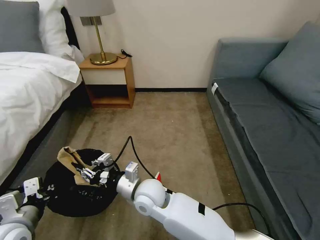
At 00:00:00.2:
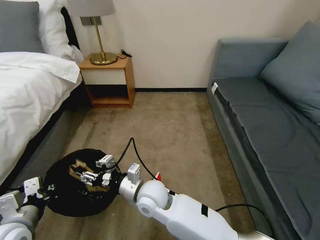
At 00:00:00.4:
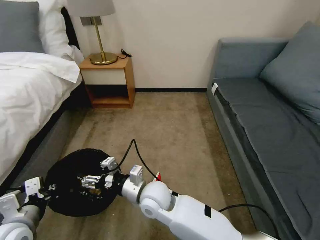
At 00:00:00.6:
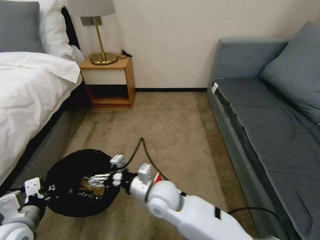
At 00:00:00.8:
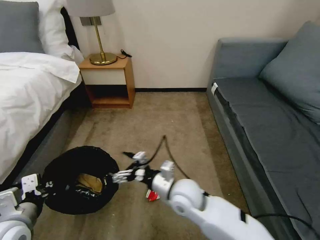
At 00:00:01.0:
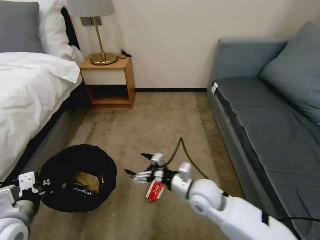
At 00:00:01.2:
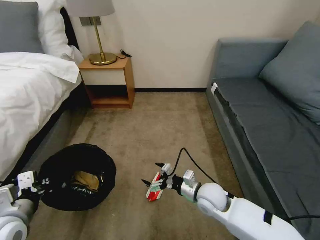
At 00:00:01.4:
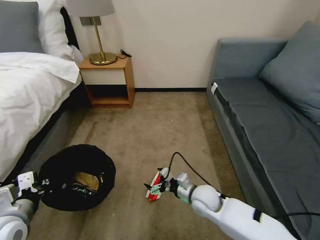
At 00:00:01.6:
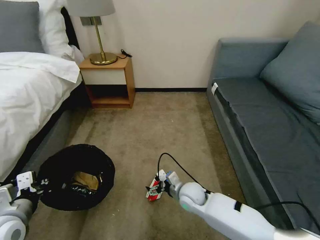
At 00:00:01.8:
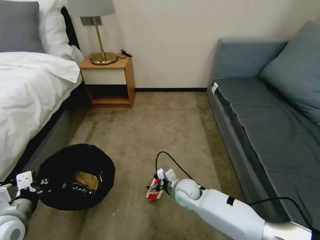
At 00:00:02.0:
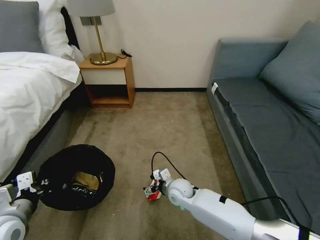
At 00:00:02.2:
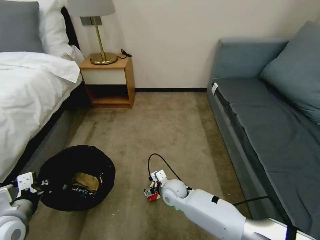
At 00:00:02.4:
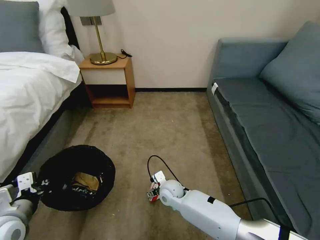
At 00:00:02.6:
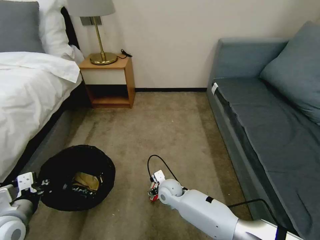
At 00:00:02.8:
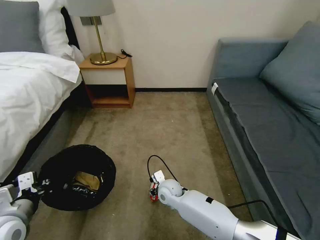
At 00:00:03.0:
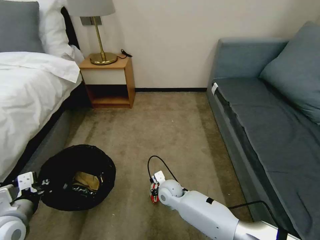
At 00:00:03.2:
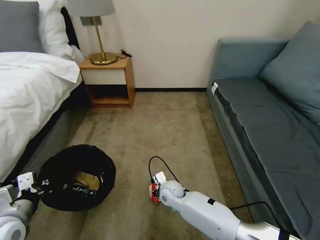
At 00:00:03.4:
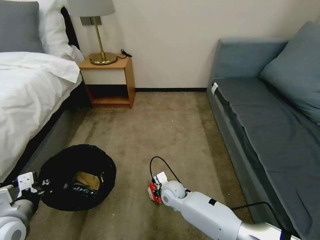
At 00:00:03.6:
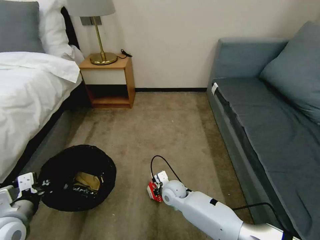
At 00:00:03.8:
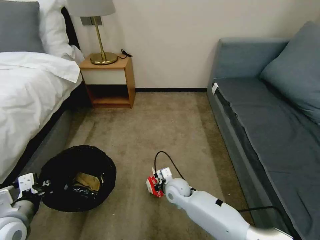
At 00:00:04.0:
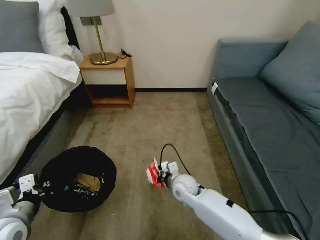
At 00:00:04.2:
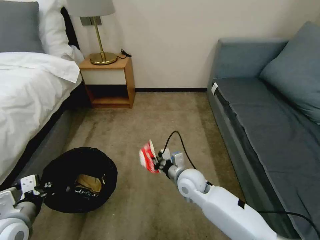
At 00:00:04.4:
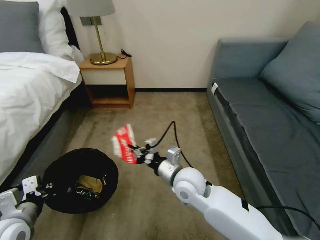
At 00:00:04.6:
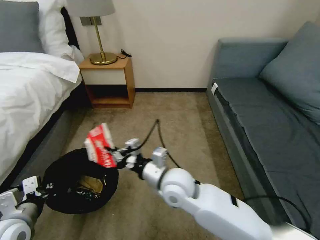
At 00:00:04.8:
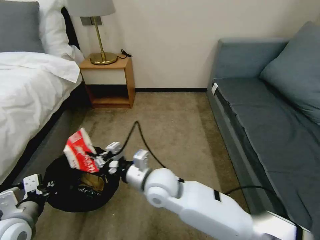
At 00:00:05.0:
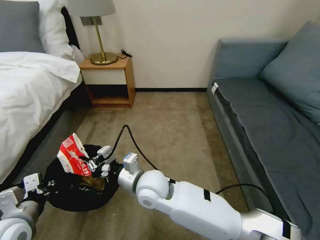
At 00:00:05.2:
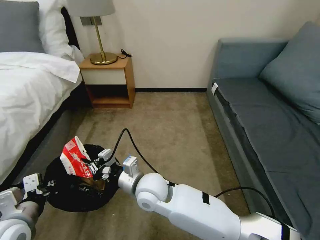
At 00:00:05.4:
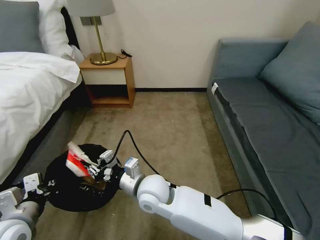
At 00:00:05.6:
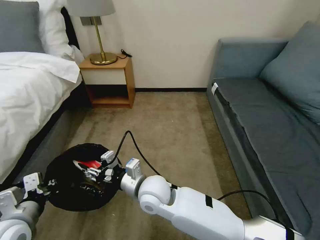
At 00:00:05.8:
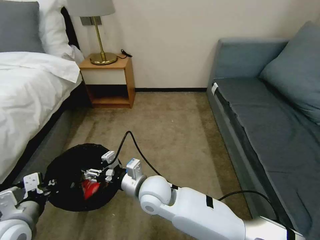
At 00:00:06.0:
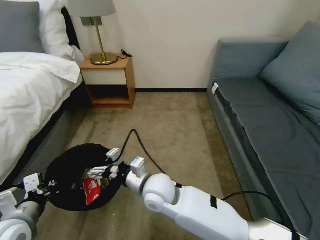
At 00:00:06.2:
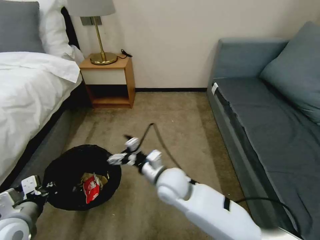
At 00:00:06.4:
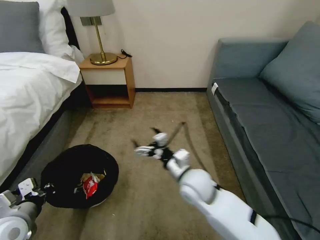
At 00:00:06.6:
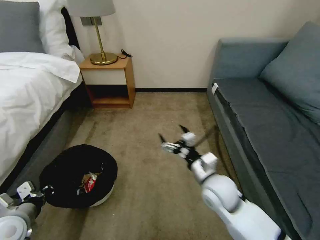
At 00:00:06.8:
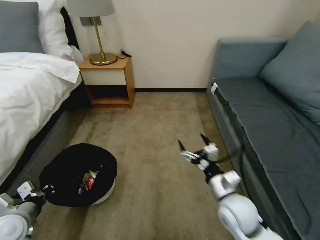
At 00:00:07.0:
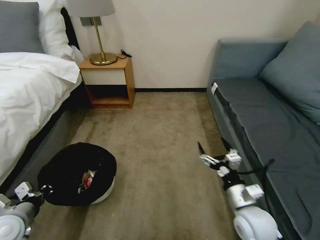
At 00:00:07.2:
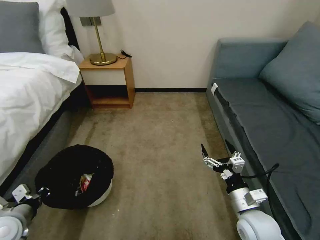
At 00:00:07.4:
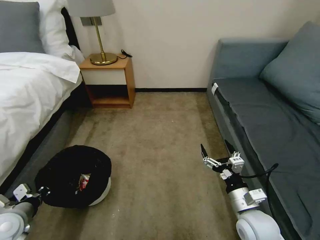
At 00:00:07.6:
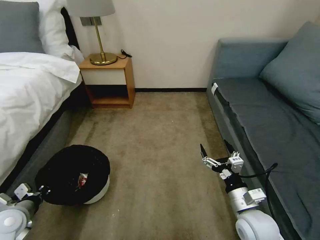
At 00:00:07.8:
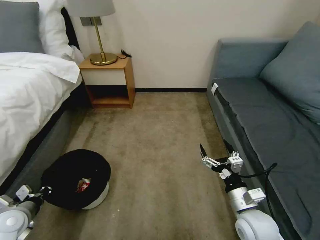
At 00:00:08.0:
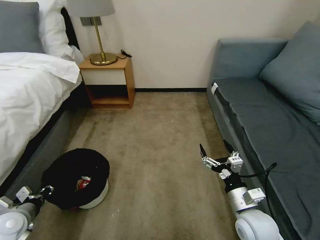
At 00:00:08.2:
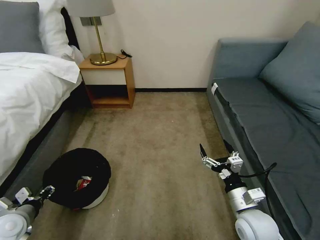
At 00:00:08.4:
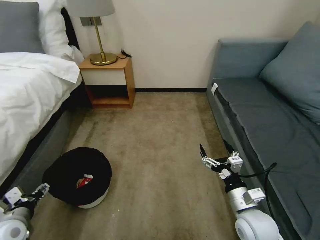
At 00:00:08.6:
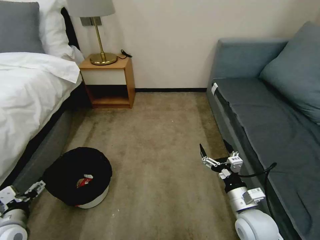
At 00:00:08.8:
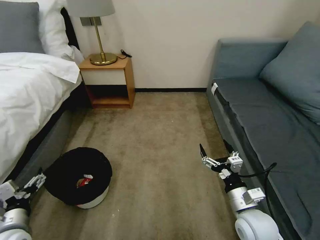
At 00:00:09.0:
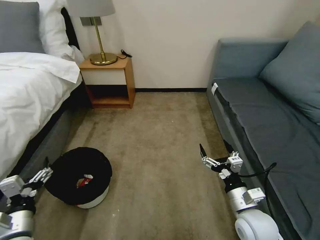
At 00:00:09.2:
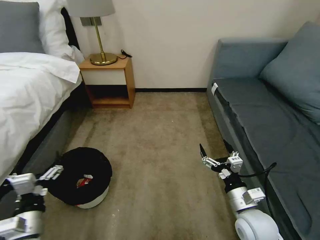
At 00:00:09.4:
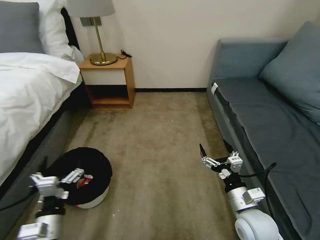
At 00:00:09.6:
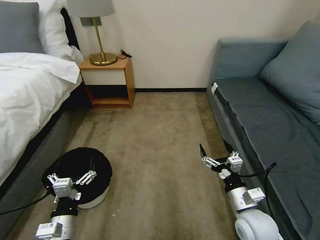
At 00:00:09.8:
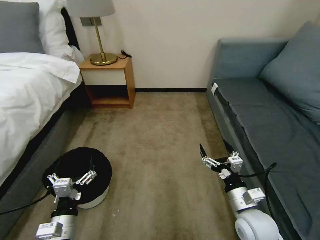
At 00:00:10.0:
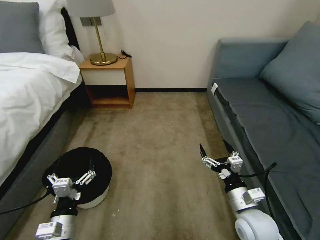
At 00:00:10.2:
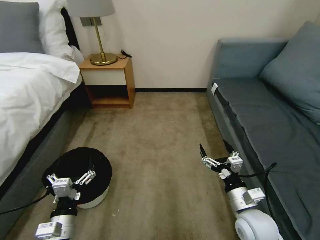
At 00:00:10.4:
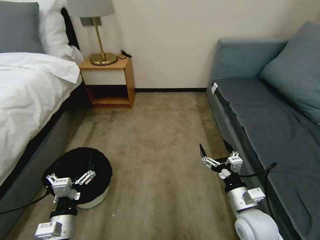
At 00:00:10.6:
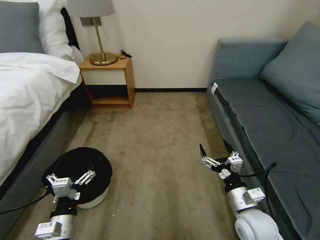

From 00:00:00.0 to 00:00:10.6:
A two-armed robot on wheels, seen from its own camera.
Task of the whole recording: Pick up the trash bin, then pick up the garbage on the floor and place it into the trash bin.
From 00:00:00.0 to 00:00:01.6: The right gripper travels to the right and downward by roughly 20 cm, and opens up.
From 00:00:01.6 to 00:00:03.0: The right gripper moves to the left, approximately 10 cm, and closes up.
From 00:00:03.0 to 00:00:04.6: The right gripper is displaced upward by about 20 cm, and closes its fingers.
From 00:00:04.6 to 00:00:06.0: The right gripper shifts roughly 5 cm to the left, and opens.
From 00:00:06.0 to 00:00:07.6: The right gripper shifts about 30 cm to the right; the left gripper goes about 10 cm to the left and downward.
From 00:00:07.6 to 00:00:09.0: The left gripper travels to the right and backward by roughly 10 cm, and opens its fingers.
From 00:00:09.0 to 00:00:10.6: The left gripper is displaced to the right by approximately 10 cm.

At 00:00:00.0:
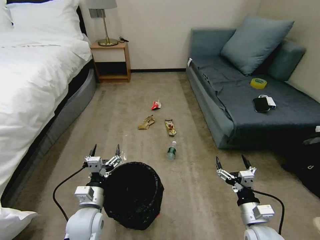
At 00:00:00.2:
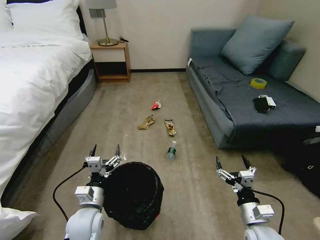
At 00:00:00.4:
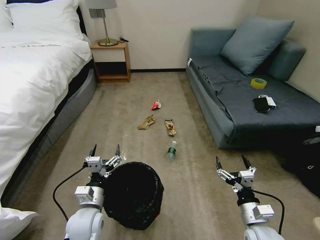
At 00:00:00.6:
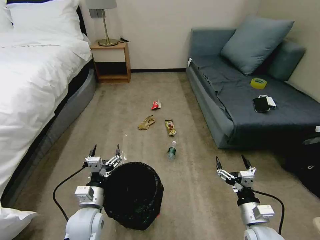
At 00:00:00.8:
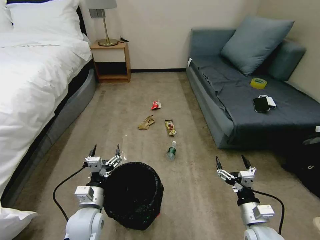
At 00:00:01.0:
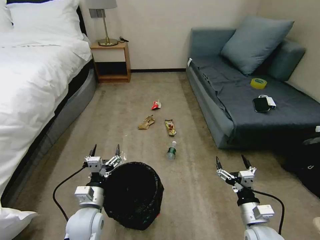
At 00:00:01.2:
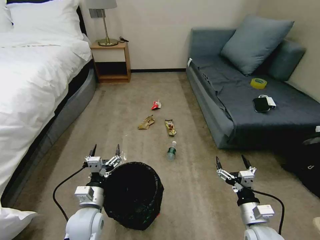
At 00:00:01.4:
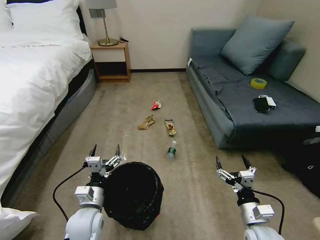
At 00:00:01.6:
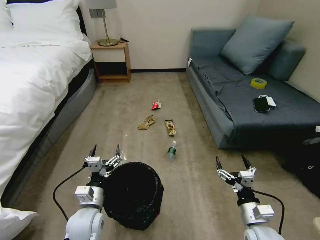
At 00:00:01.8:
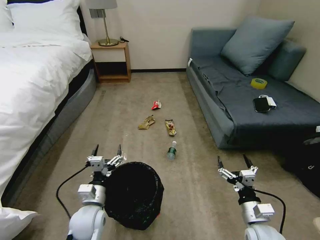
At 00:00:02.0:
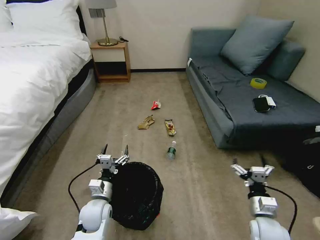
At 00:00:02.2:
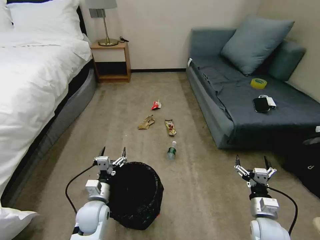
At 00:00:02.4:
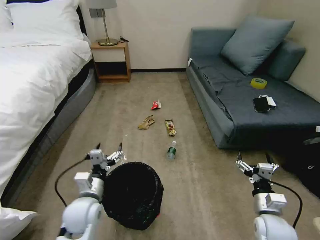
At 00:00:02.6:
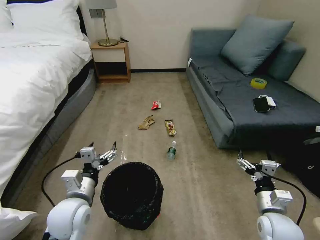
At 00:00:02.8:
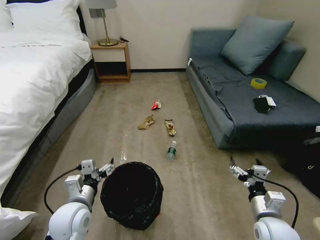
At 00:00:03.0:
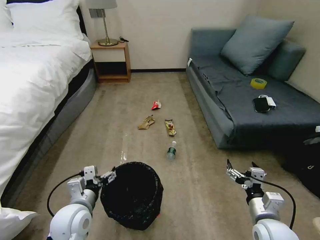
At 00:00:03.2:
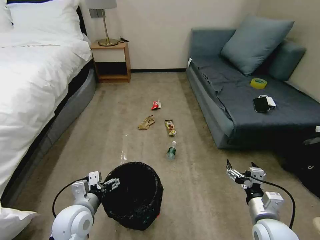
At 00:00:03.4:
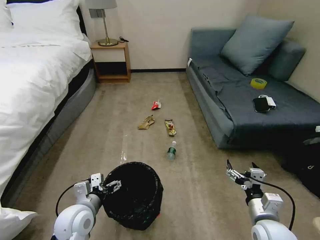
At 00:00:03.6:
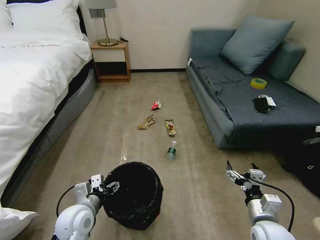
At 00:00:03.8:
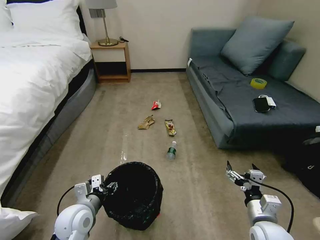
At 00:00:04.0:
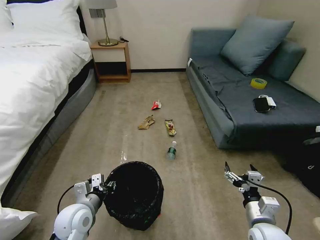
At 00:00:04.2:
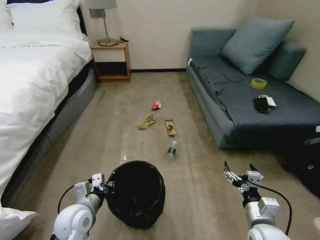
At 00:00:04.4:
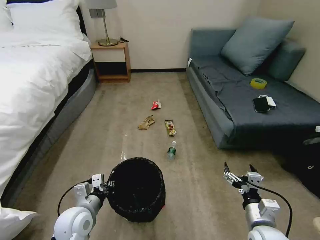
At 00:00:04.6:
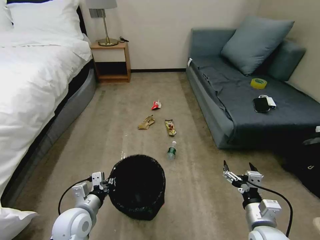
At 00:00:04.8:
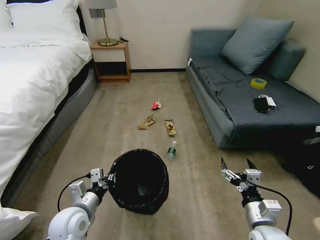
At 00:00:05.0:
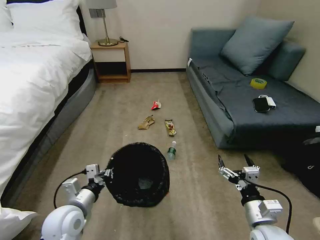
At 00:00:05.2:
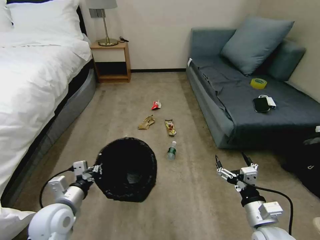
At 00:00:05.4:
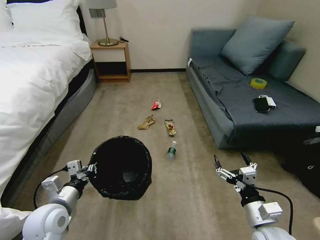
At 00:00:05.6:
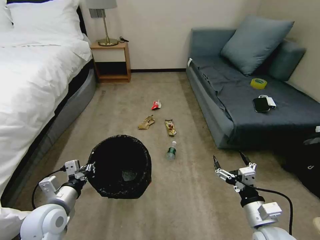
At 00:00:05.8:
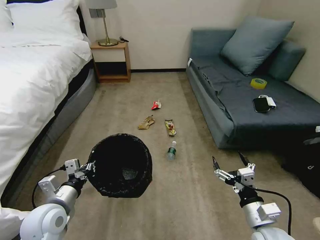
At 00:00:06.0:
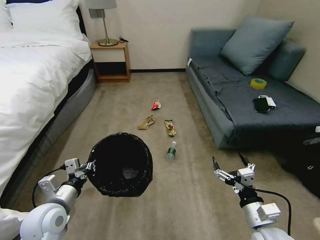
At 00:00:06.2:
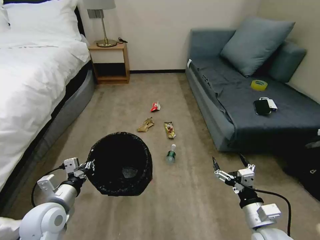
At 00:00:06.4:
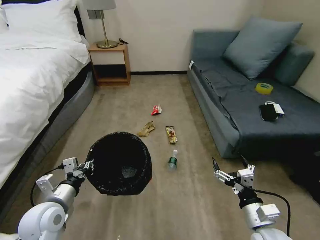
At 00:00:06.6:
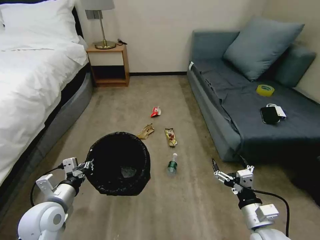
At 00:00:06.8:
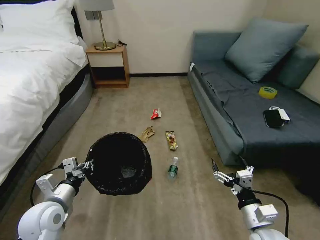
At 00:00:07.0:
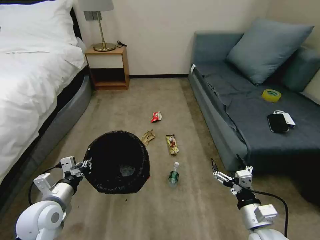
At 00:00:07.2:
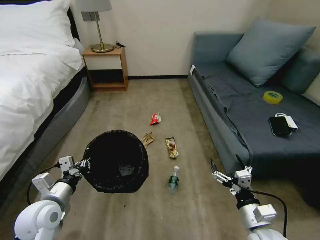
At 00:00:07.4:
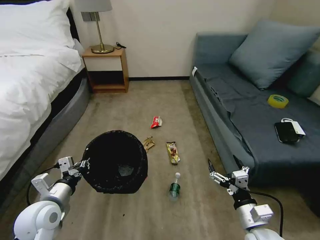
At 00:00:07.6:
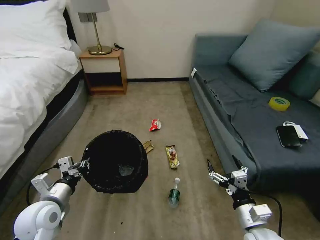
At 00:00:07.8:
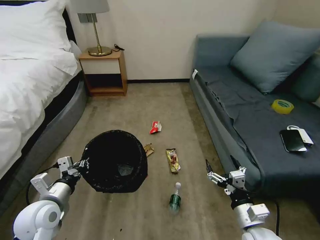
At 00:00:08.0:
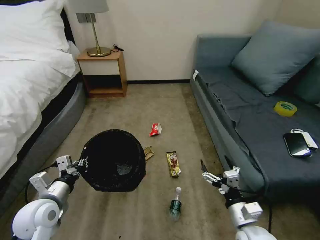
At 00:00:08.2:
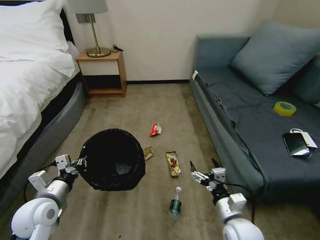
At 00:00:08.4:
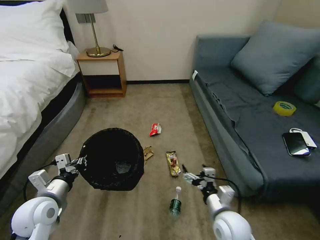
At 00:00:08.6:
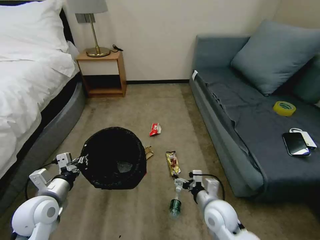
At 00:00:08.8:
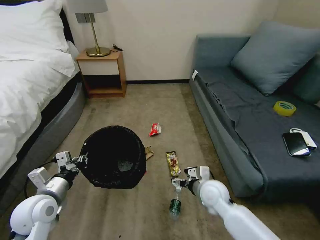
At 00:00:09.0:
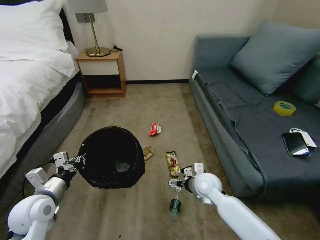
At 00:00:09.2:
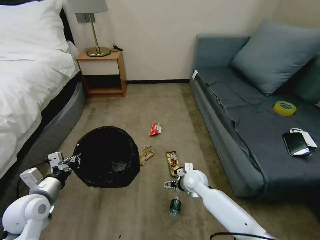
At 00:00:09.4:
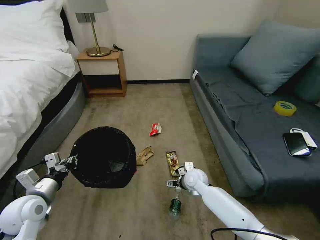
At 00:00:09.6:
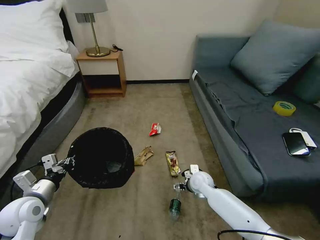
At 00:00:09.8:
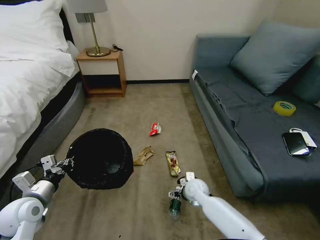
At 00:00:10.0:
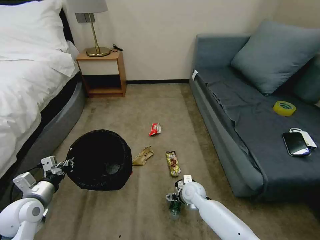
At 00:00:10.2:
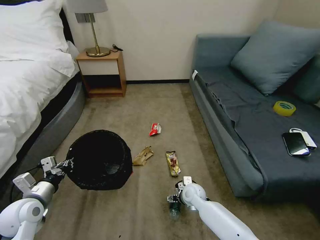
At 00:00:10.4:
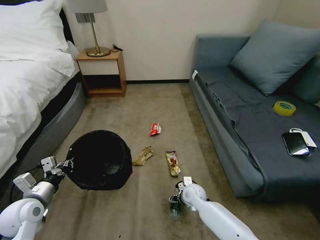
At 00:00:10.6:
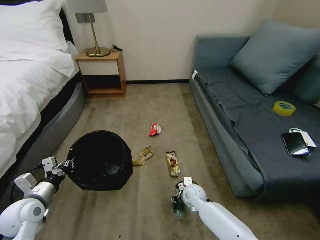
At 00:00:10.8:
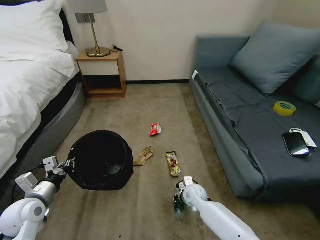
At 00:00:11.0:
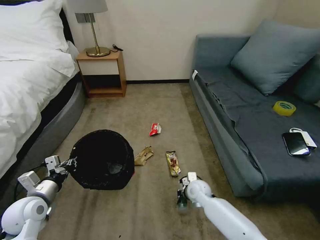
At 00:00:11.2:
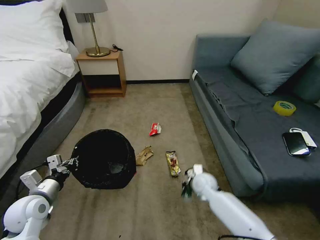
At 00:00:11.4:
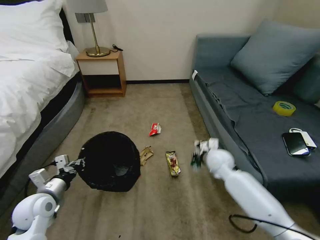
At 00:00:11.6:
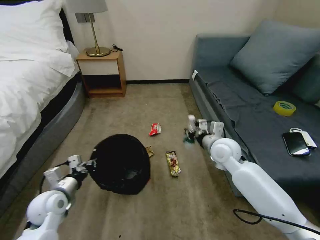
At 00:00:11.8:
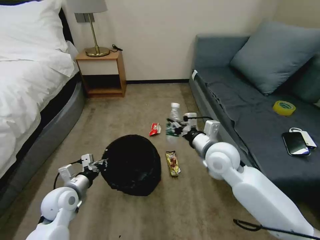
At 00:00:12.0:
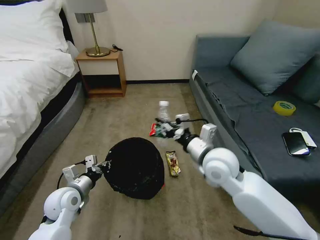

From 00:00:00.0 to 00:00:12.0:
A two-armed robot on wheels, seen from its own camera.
Task of the whole recording: Pick up the trash bin, then pick up the garbage on the floor and place it into the trash bin.
From 00:00:01.6 to 00:00:03.0: The left gripper moves up and down over approximately 15 cm, changing direction 2 times.
From 00:00:03.0 to 00:00:04.4: The left gripper closes.
From 00:00:04.4 to 00:00:06.0: The left gripper goes approximately 10 cm upward and to the left.
From 00:00:07.6 to 00:00:09.0: The right gripper is displaced forward and to the left by about 20 cm.
From 00:00:09.0 to 00:00:10.4: The right gripper moves downward, approximately 10 cm. Meanwhile the left gripper moves roughly 5 cm.
From 00:00:10.4 to 00:00:12.0: The right gripper is displaced upward by roughly 30 cm, and closes its fingers. Meanwhile the left gripper goes approximately 10 cm to the right.
